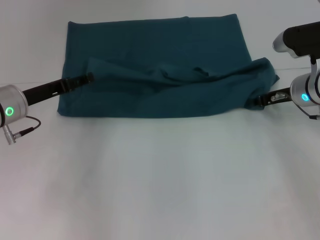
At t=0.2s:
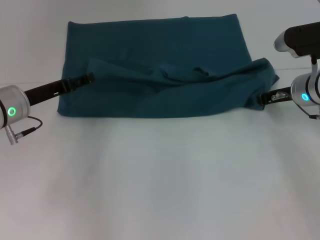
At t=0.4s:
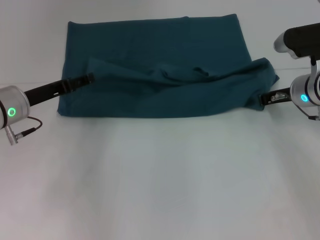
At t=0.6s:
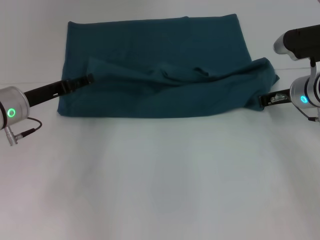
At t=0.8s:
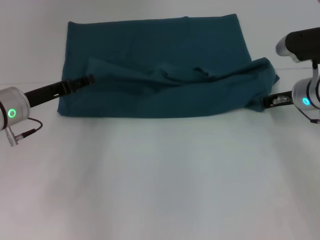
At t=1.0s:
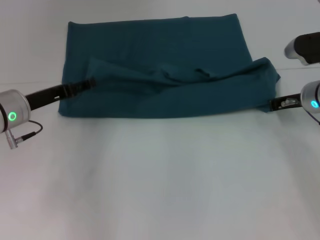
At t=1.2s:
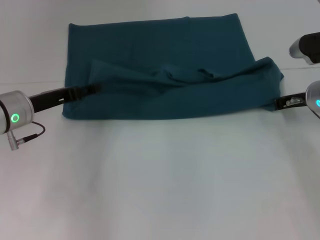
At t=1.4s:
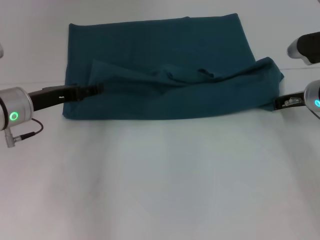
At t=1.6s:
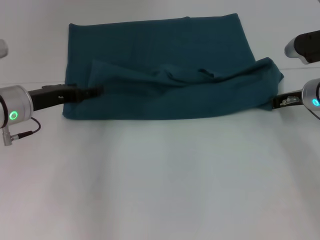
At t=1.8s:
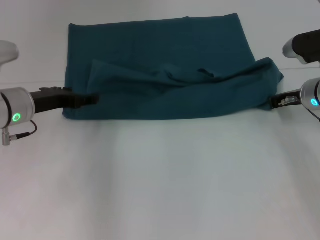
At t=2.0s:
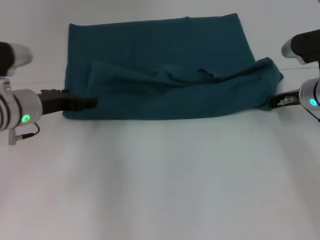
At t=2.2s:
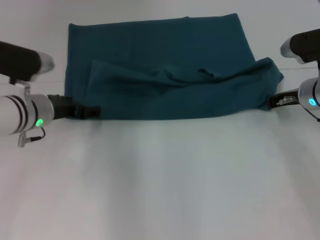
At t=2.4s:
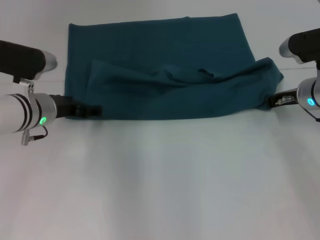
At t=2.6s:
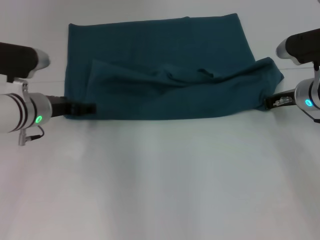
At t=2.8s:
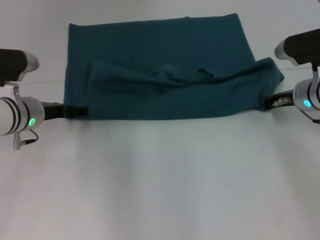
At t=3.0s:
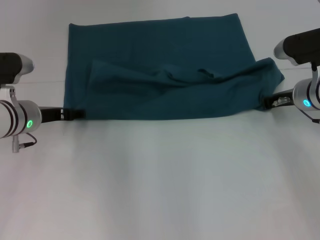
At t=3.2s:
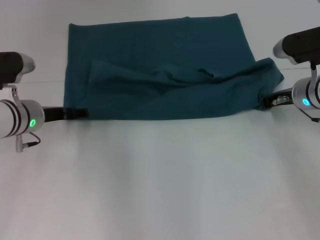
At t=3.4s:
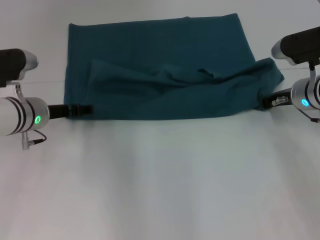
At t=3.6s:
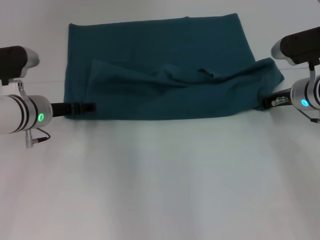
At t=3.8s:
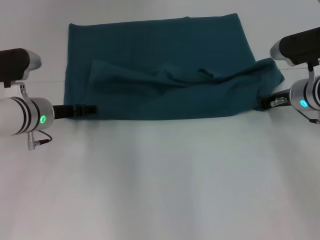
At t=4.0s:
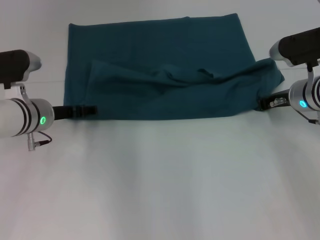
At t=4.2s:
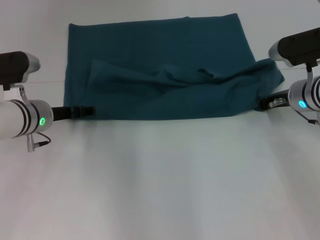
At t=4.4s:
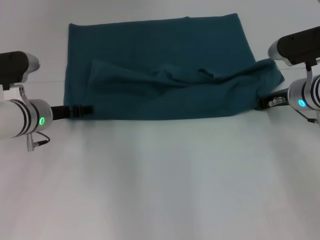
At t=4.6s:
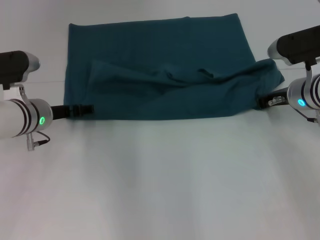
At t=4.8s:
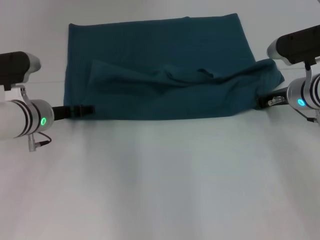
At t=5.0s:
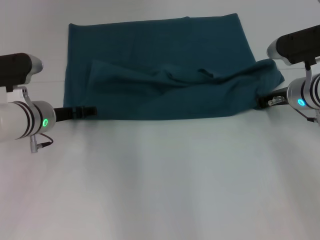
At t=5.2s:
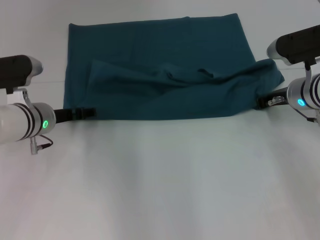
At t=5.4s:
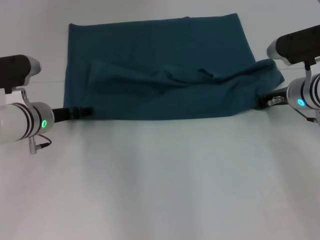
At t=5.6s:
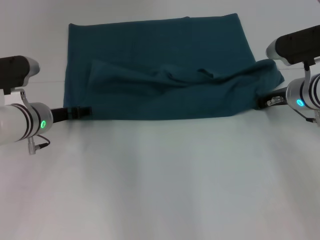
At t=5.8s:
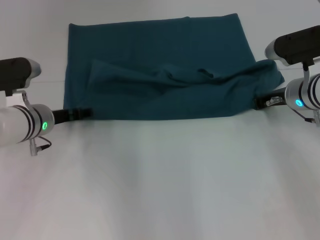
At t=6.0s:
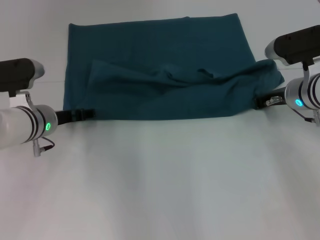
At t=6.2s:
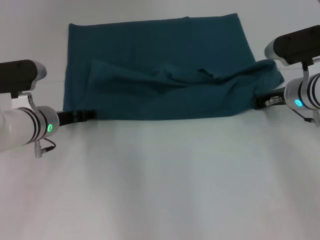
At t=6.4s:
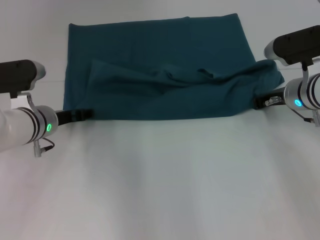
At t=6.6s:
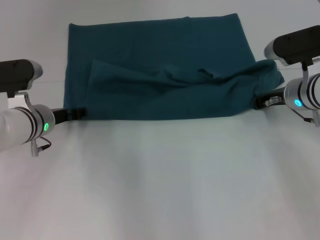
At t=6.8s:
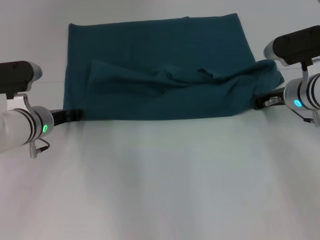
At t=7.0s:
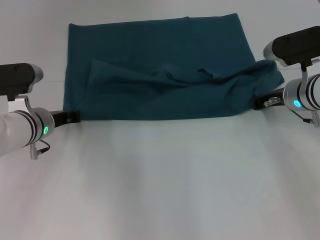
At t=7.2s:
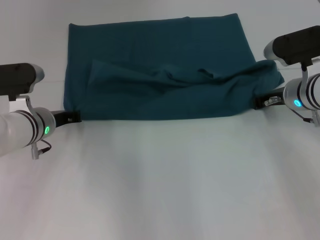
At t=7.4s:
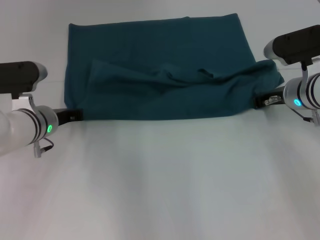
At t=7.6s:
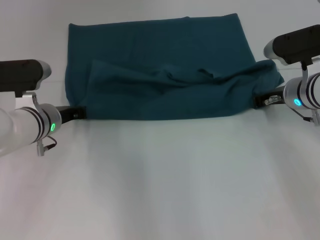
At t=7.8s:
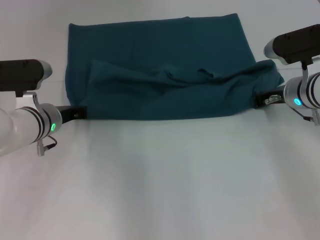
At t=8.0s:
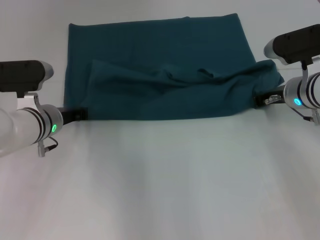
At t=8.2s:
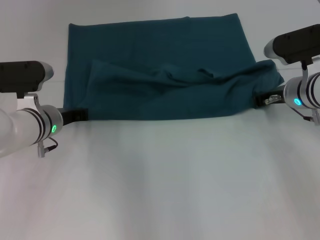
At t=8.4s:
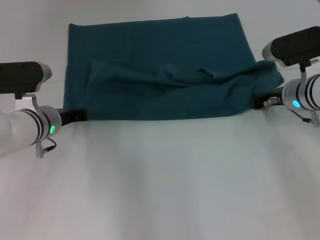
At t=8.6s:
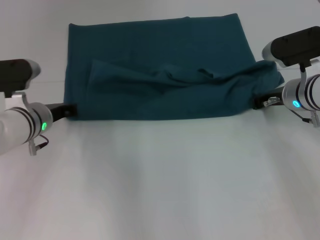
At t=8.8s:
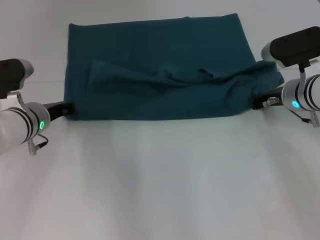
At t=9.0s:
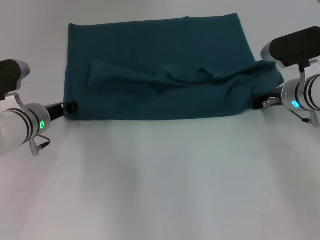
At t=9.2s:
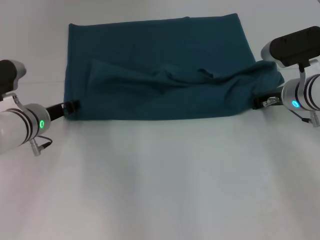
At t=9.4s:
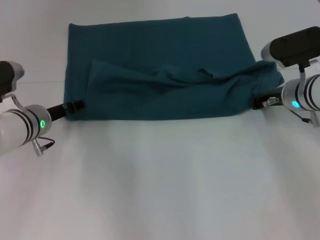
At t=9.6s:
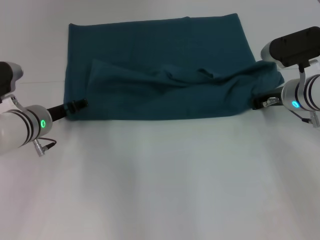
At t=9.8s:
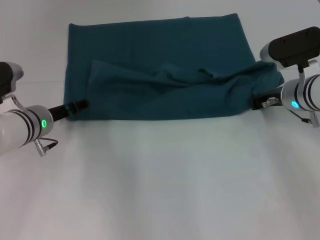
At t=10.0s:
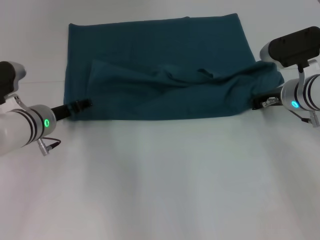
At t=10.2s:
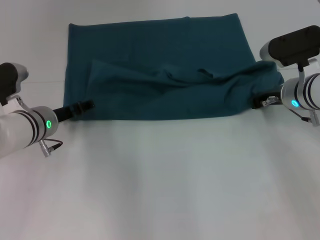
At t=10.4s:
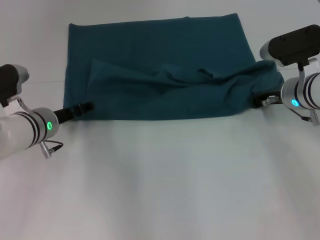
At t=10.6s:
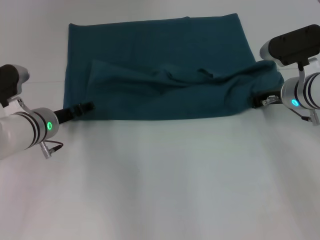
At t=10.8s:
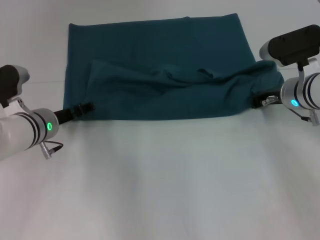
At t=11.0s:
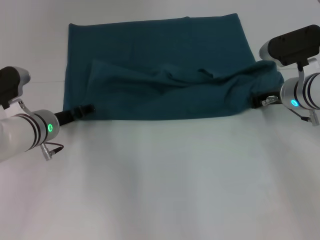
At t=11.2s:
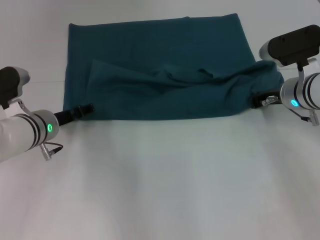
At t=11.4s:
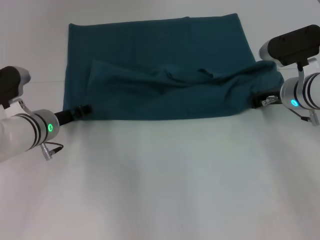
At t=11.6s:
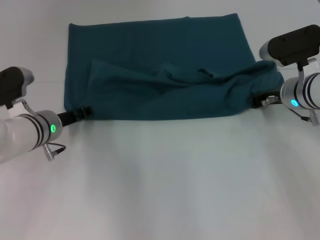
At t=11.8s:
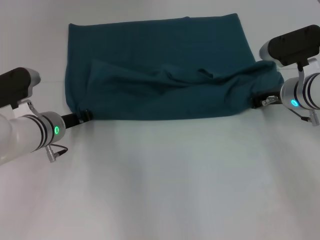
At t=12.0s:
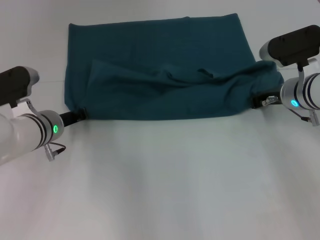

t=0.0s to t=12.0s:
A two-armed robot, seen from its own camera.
t=0.0s to t=1.6s: The right gripper closes its fingers.
t=3.0s to t=4.4s: The grippers stay close to where they were, moving slightly.
t=4.4s to t=6.0s: Neither gripper changes place.
t=6.0s to t=7.6s: The left gripper closes.
t=7.6s to t=9.0s: The grippers stay close to where they were, moving slightly.
t=9.0s to t=10.4s: The left gripper opens up.
t=10.4s to t=12.0s: The left gripper closes.

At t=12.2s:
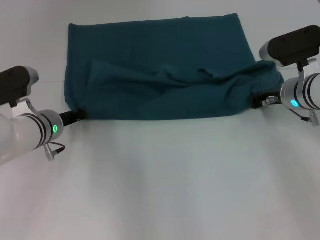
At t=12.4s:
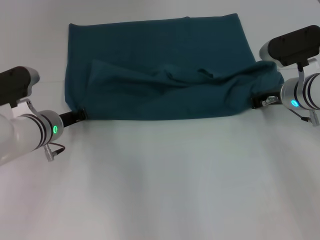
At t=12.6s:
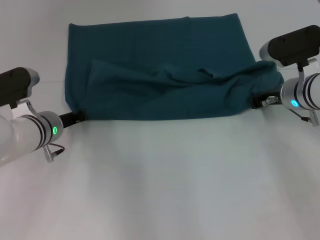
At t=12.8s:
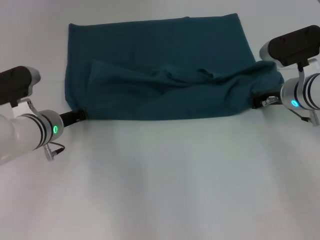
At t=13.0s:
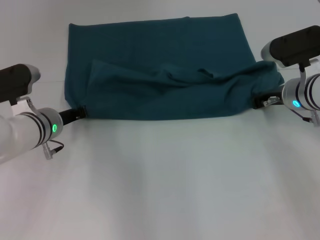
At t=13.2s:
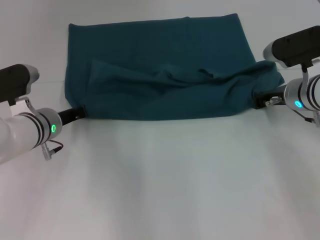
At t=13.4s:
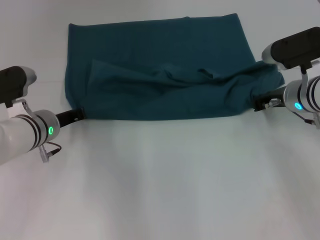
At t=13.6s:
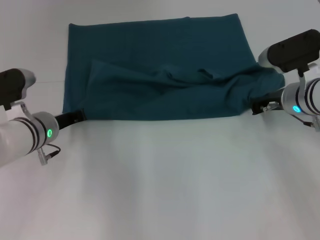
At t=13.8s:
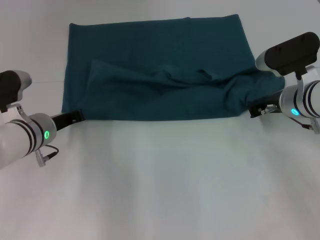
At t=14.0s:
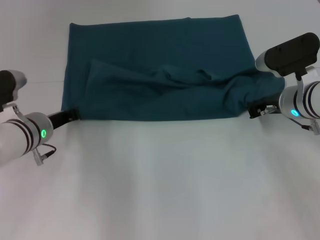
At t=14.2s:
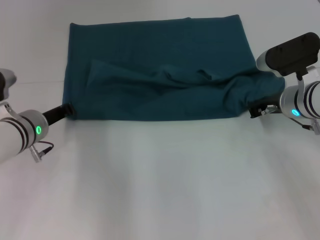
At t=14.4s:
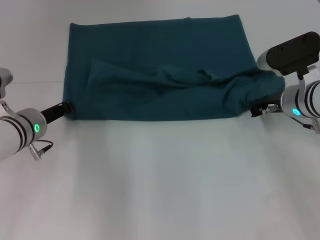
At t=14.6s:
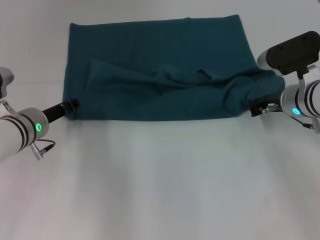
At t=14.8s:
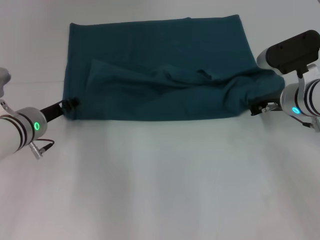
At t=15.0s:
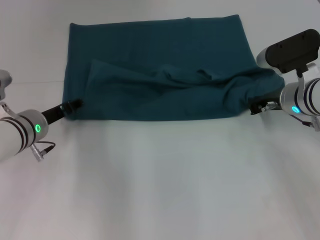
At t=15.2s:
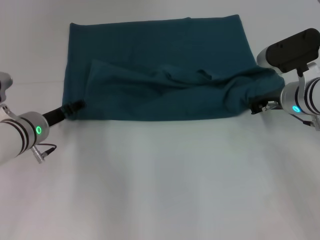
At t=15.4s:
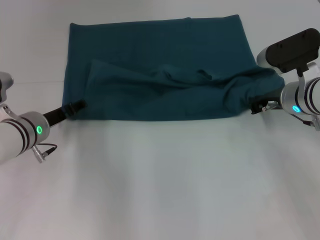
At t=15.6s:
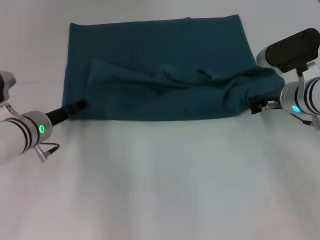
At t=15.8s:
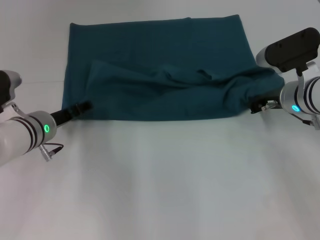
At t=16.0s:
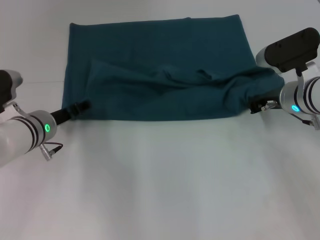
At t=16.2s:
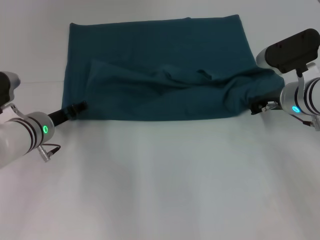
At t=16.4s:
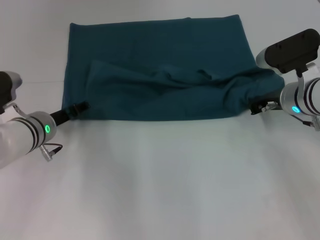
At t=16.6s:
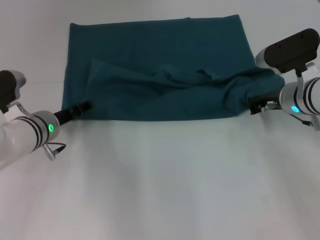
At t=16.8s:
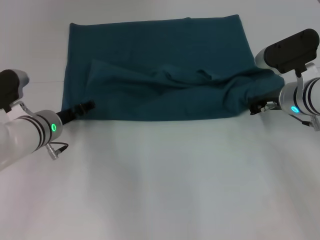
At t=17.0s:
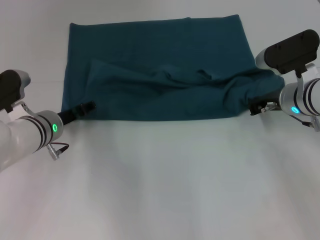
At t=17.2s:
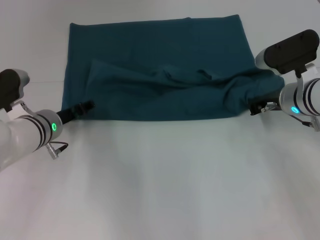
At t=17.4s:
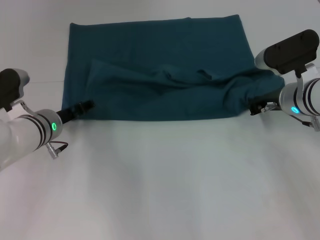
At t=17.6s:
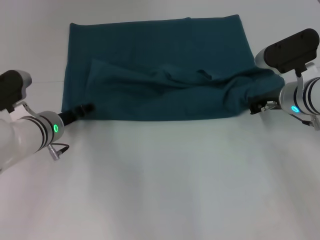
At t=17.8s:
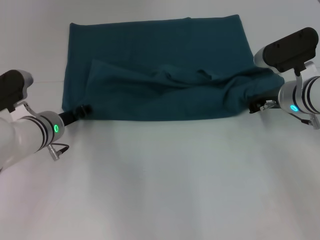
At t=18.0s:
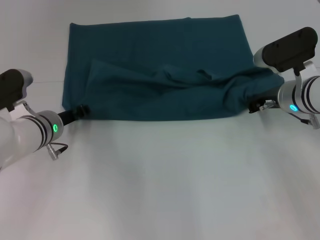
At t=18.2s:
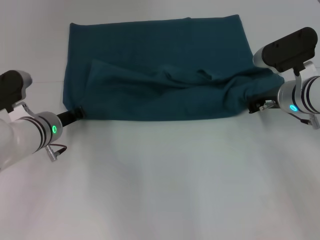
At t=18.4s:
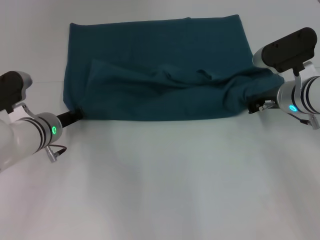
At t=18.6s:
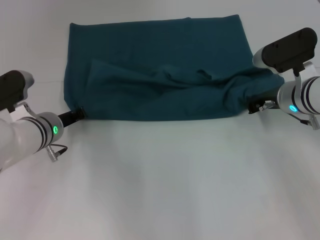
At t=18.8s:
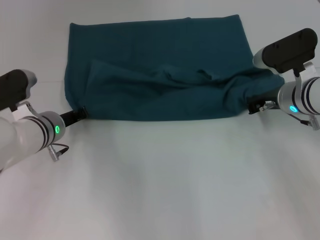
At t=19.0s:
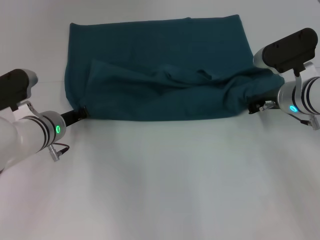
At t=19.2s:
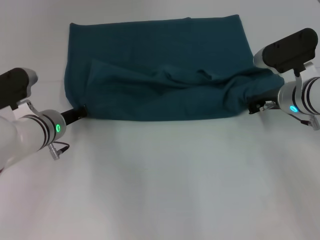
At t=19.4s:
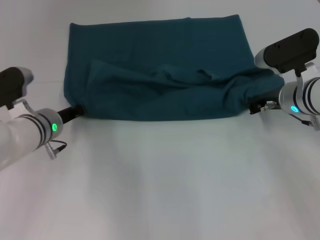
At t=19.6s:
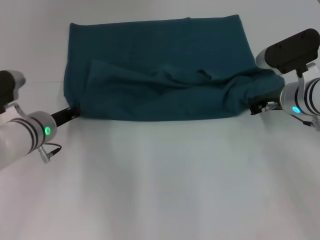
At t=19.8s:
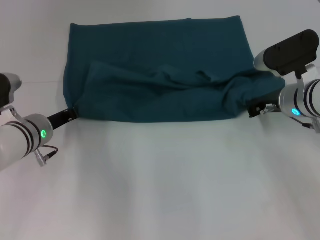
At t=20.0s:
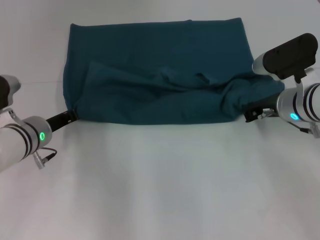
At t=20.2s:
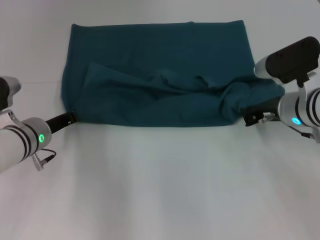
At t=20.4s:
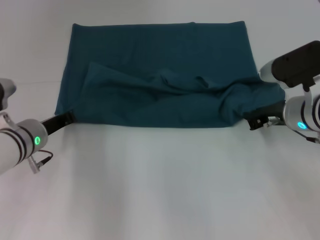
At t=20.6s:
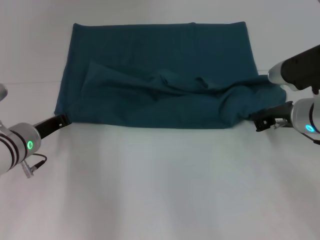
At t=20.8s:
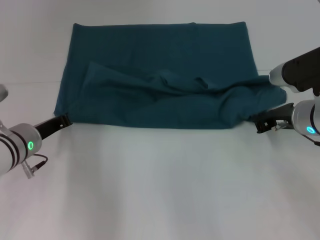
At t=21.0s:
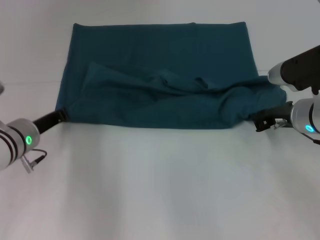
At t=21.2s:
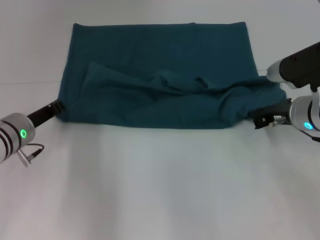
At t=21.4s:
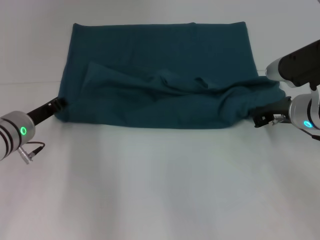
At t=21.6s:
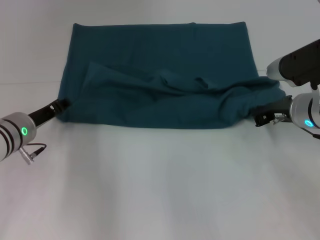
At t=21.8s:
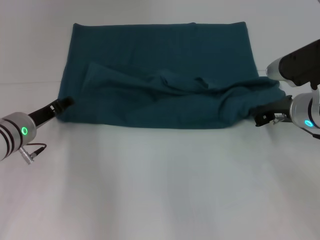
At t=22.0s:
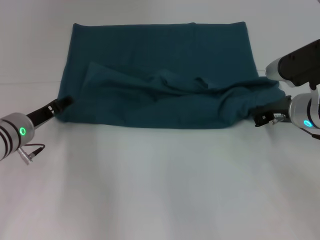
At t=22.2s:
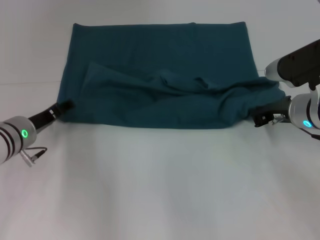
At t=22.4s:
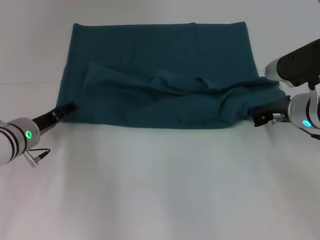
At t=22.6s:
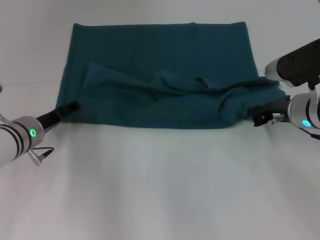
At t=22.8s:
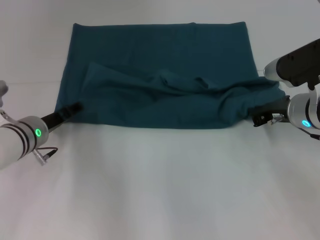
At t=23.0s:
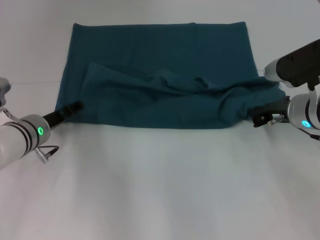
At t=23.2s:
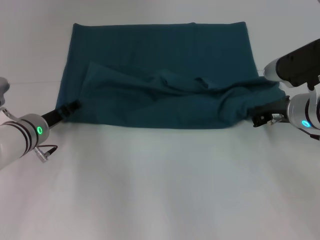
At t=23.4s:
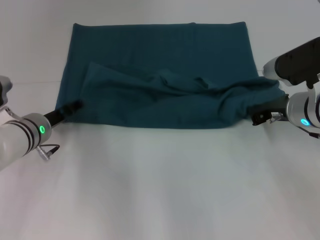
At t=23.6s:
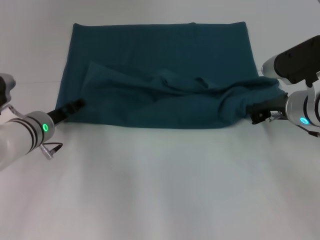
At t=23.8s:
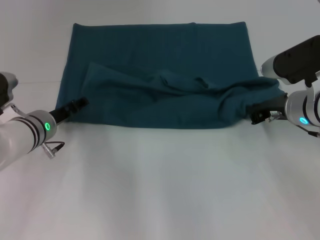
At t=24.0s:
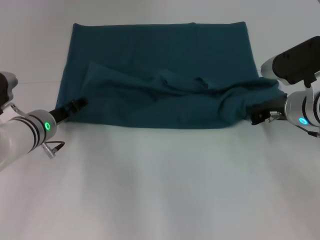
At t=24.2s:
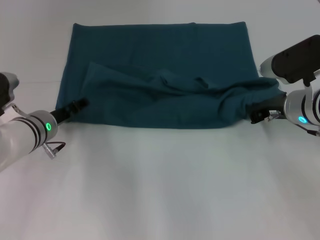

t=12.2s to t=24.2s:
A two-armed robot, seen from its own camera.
t=12.2s to t=13.8s: The grippers make only small movements.
t=13.8s to t=15.2s: The left gripper opens its fingers.
t=15.2s to t=16.6s: The grippers stay close to where they were, moving slightly.
t=16.6s to t=18.2s: The left gripper closes its fingers.
t=18.2s to t=19.8s: The left gripper closes.
t=19.8s to t=21.2s: The grippers make only small movements.
t=21.2s to t=22.6s: The left gripper opens its fingers.
t=22.6s to t=24.2s: The grippers stay close to where they were, moving slightly.
